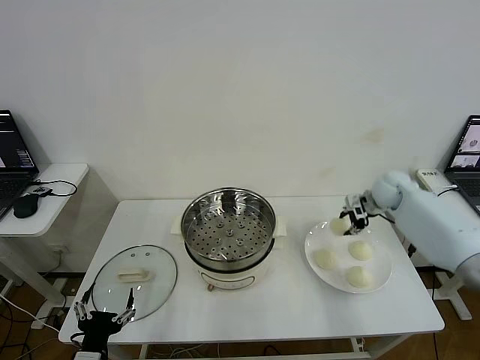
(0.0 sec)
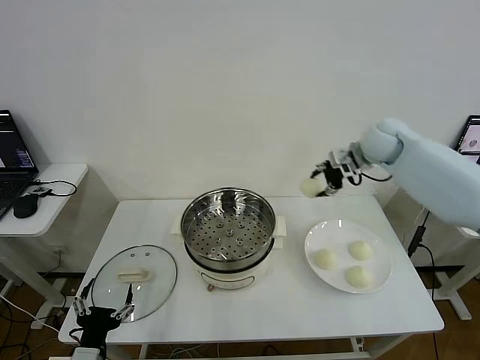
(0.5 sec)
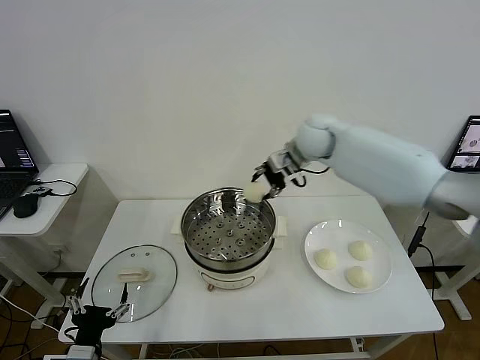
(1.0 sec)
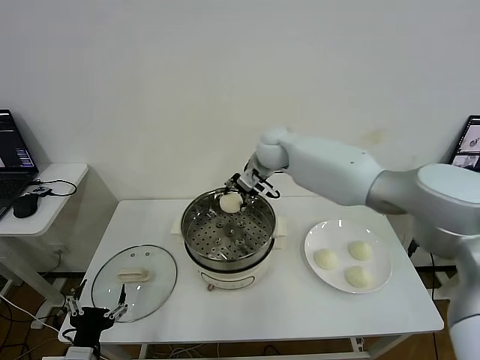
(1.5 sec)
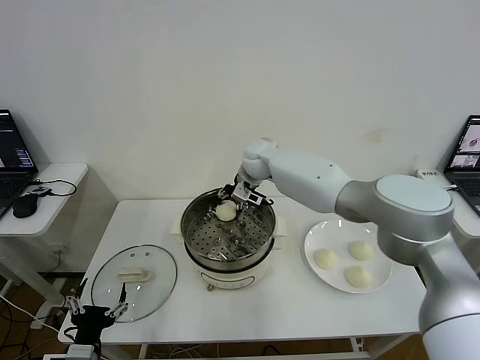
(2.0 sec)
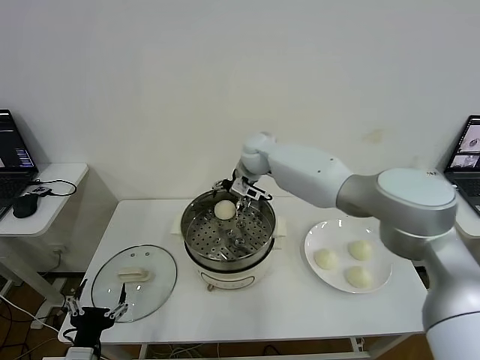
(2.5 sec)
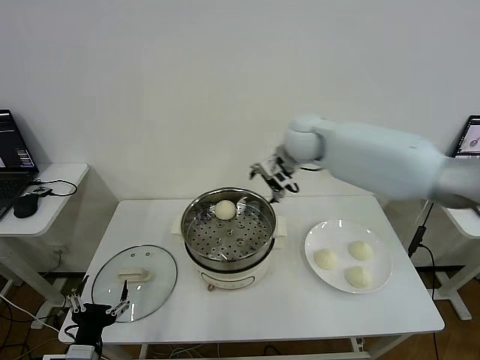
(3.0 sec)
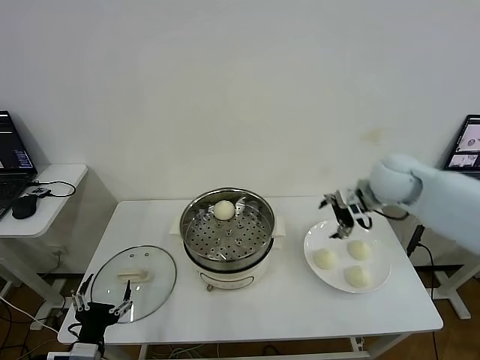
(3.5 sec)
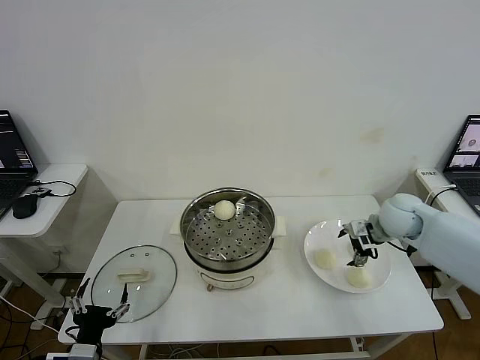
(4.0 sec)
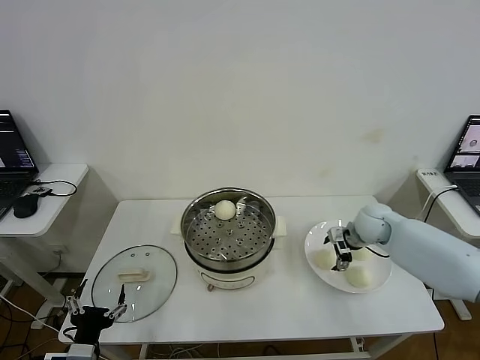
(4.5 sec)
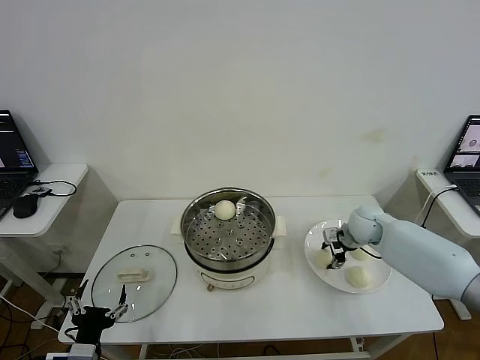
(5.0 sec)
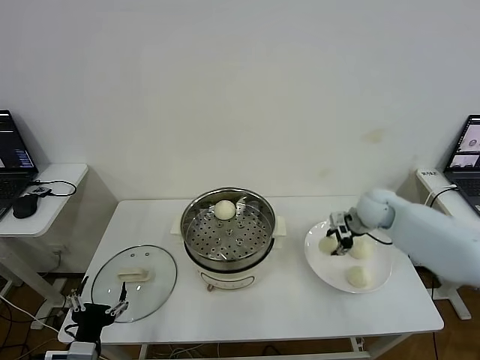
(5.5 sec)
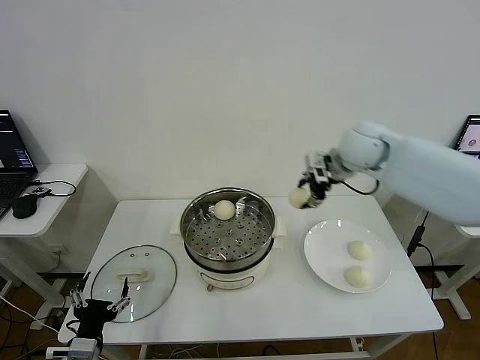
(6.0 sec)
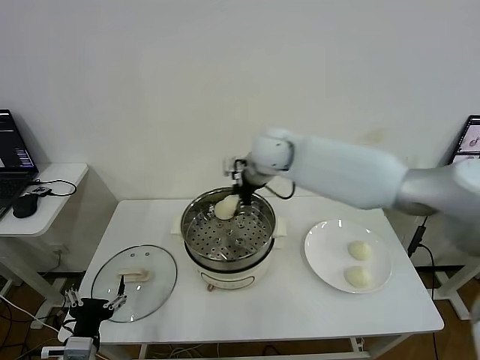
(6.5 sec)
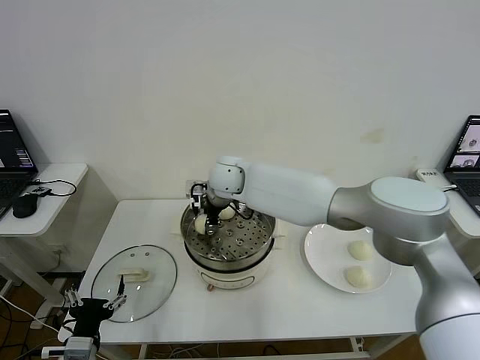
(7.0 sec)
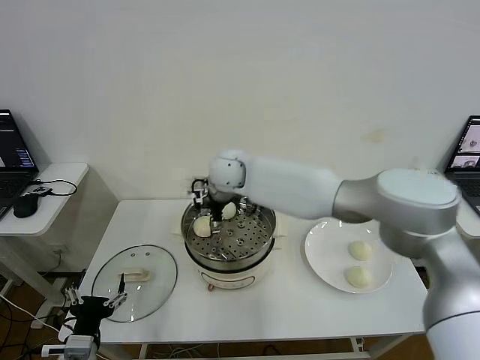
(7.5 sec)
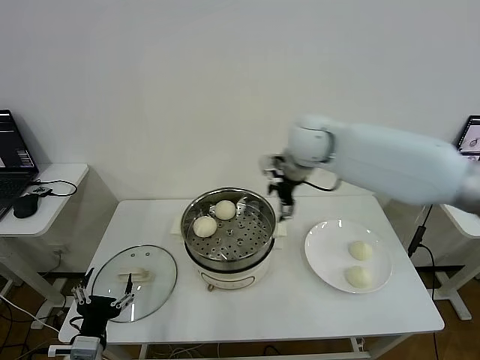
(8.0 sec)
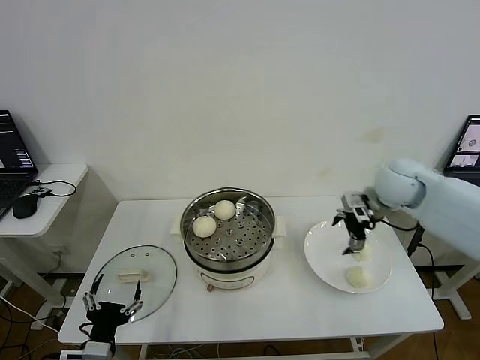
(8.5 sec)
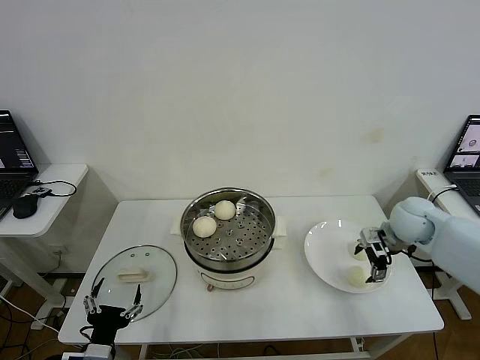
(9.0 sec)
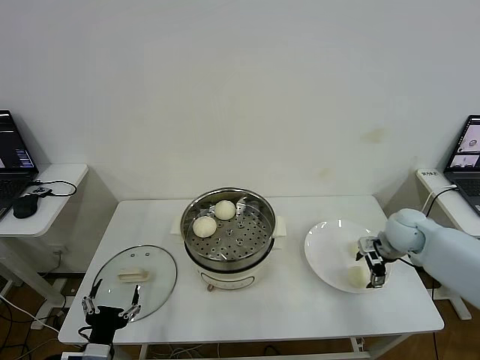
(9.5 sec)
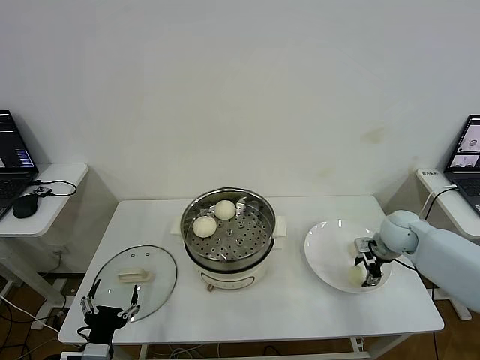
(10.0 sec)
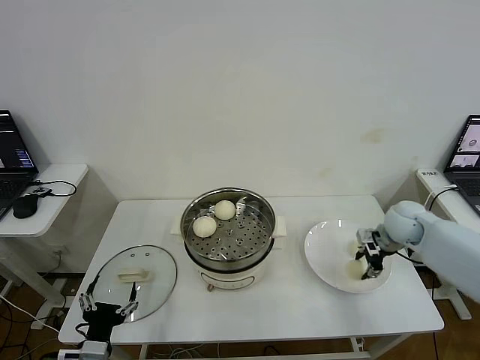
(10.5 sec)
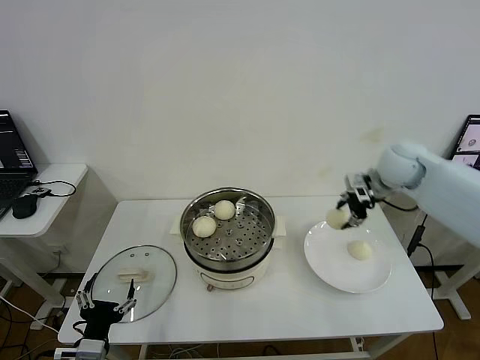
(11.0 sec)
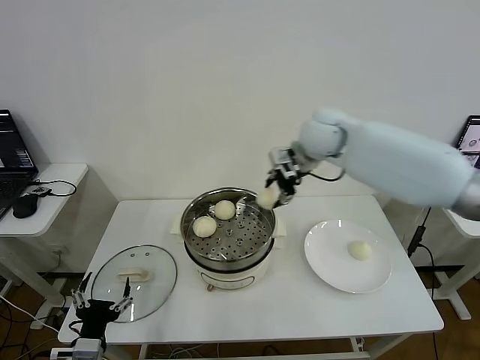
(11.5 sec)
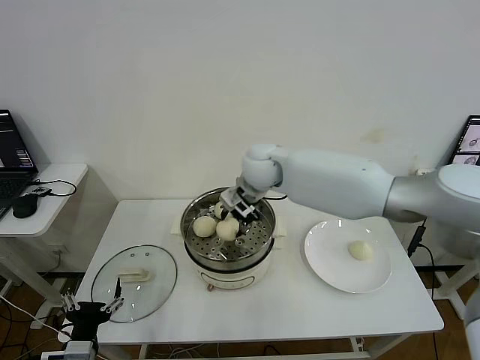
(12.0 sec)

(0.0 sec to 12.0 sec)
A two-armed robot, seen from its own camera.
Step, 0.0 sec - 2.0 sec: Place the baozi on the steamer with right gripper.
Step, 2.5 sec - 5.0 sec: Grasp the baozi in the plate with right gripper.
Step, 5.5 sec - 7.5 sec: Place the baozi on the steamer with right gripper.
Step, 8.0 sec - 10.0 sec: Grasp the baozi in the plate with right gripper.
0.0 sec - 2.0 sec: The right gripper shifts roughly 35 cm to the left.
2.0 sec - 4.0 sec: The right gripper travels to the right and backward by roughly 35 cm, and opens.
4.0 sec - 6.0 sec: The right gripper travels upward and to the left by roughly 20 cm, and closes its fingers.
6.0 sec - 8.0 sec: The right gripper goes to the left and returns, some 25 cm each way, and opens.
8.0 sec - 10.0 sec: The right gripper moves to the right and downward, some 35 cm, and closes its fingers.
10.0 sec - 12.0 sec: The right gripper travels to the left and upward by approximately 40 cm.

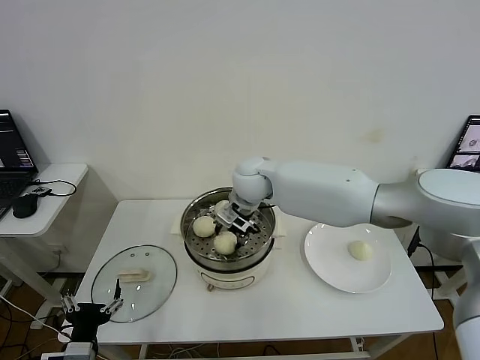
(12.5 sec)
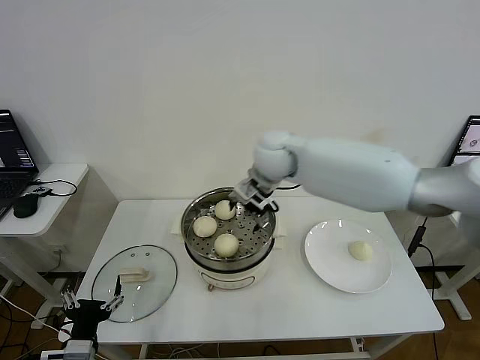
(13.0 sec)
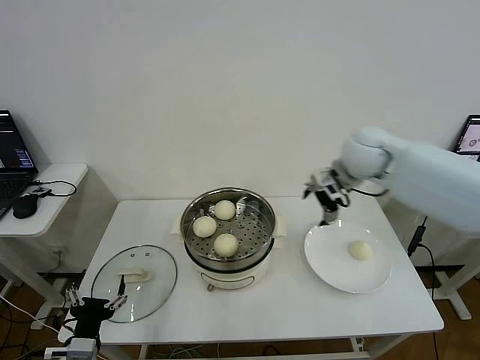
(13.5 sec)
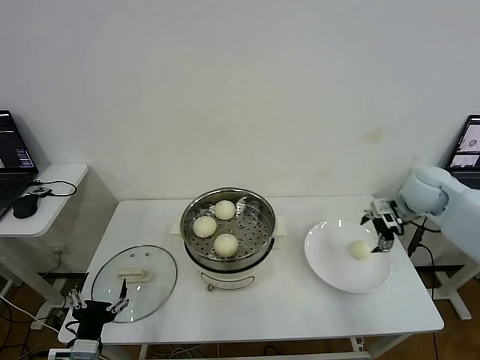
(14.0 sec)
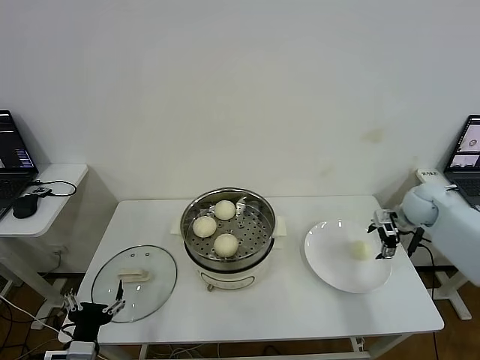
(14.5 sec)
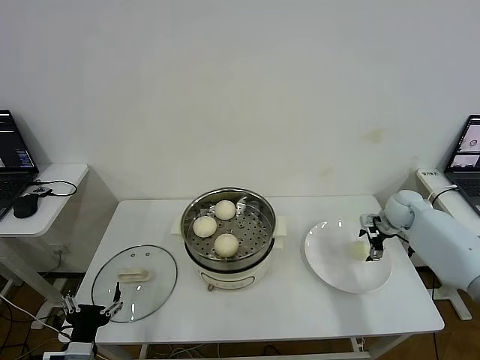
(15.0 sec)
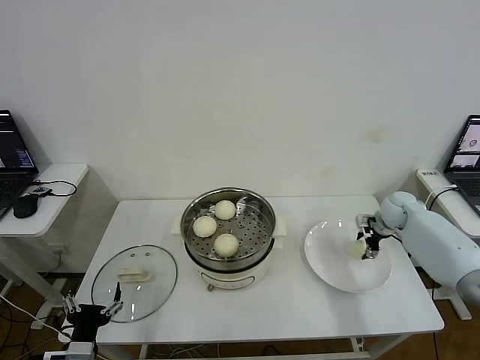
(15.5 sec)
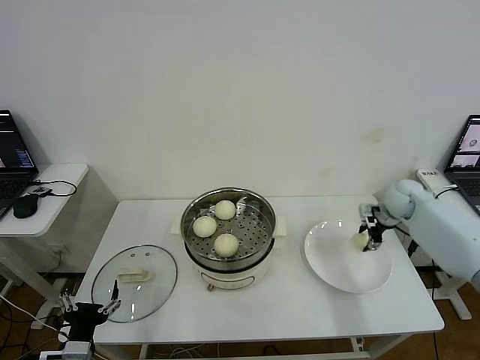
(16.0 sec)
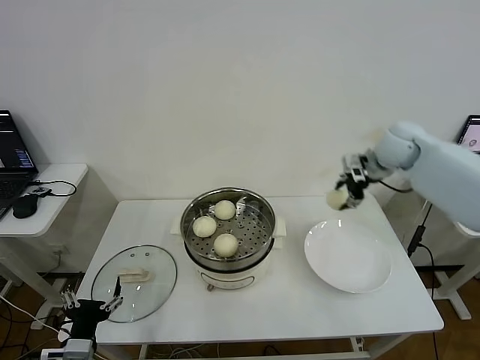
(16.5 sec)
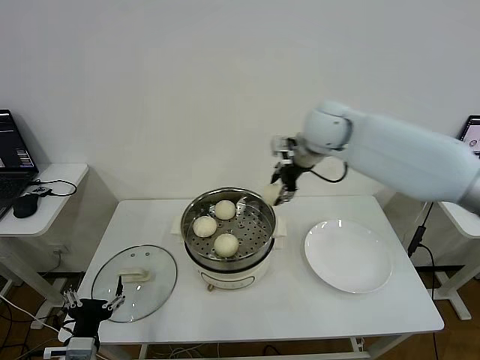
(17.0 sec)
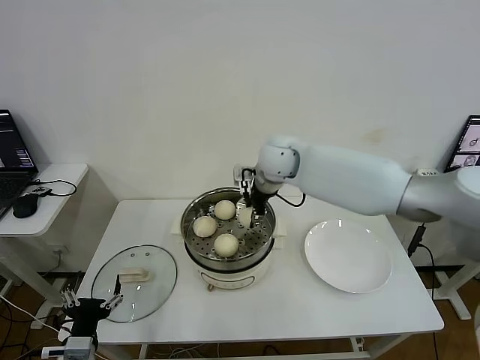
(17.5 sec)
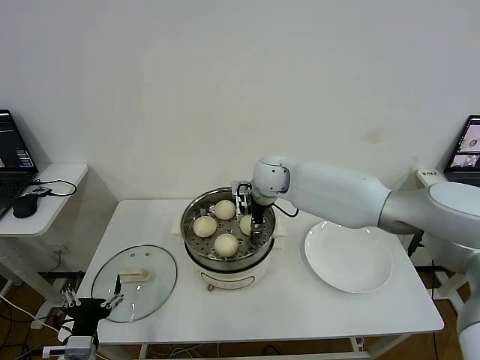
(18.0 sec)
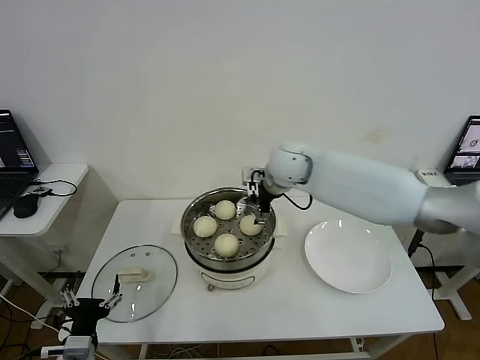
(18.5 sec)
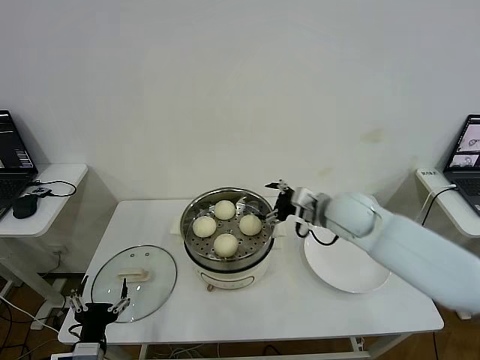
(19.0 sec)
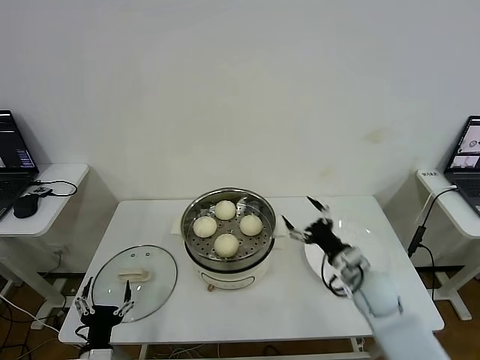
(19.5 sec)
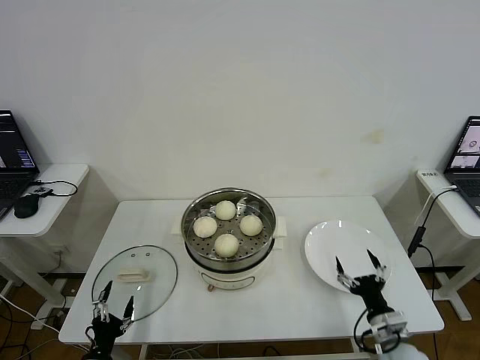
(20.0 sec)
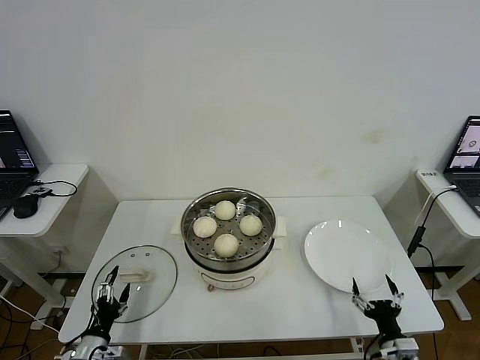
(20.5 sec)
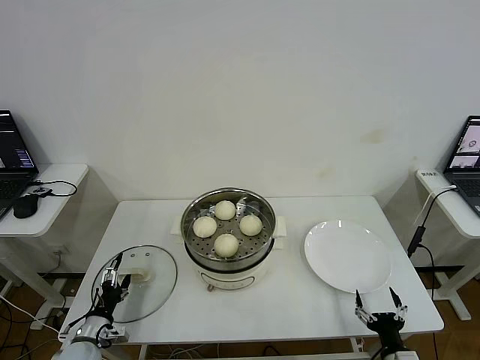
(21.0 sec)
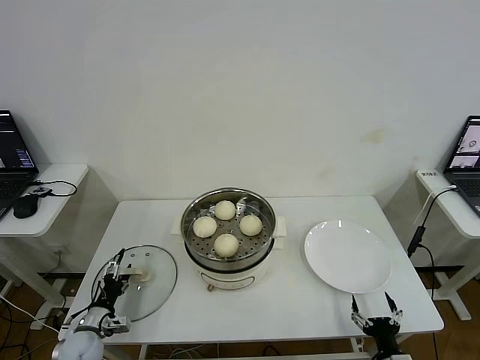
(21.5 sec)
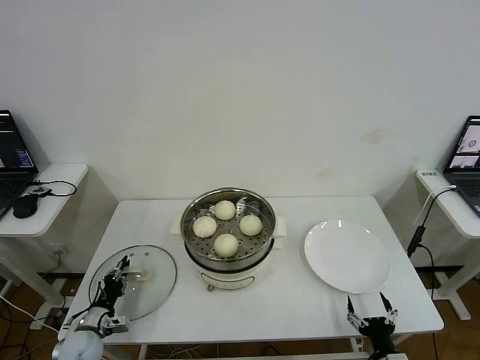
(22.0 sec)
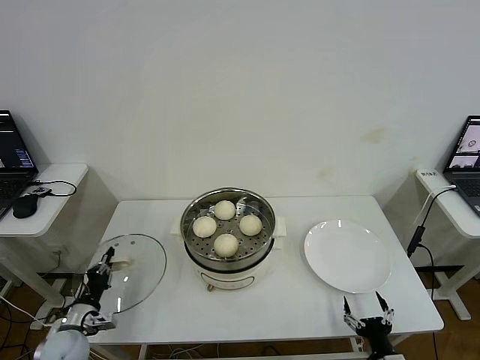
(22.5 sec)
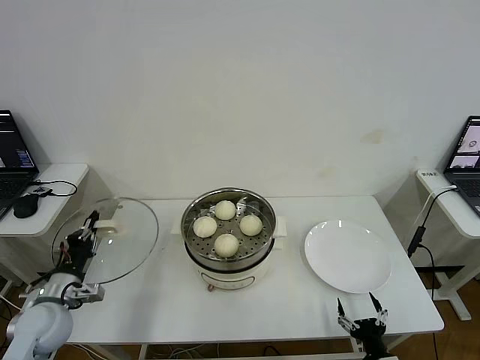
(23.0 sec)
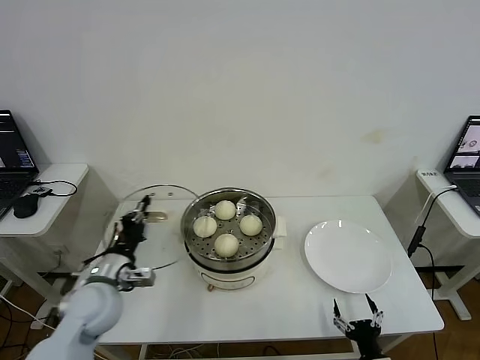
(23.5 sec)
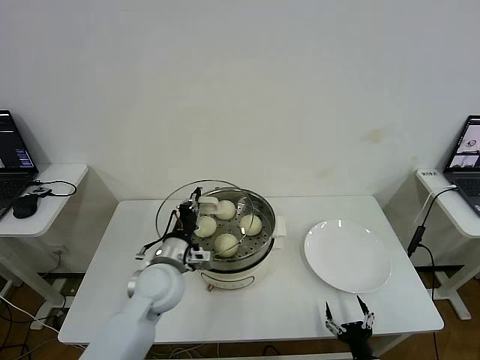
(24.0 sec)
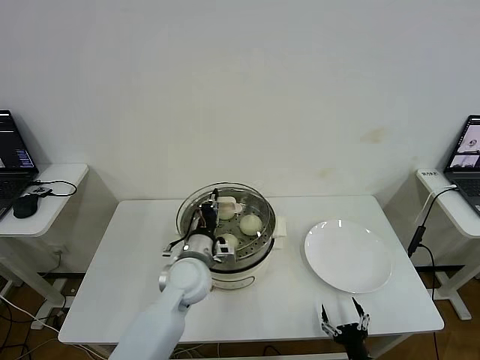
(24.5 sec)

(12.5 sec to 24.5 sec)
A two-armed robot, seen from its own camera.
Step, 13.0 sec - 15.5 sec: Grasp the baozi in the plate with right gripper.
Step, 16.0 sec - 18.0 sec: Place the baozi on the steamer with right gripper.
Step, 18.5 sec - 22.0 sec: Grasp the pot lid with left gripper.
12.5 sec - 14.5 sec: The right gripper goes some 40 cm to the right, and opens up.
14.5 sec - 16.5 sec: The right gripper goes about 20 cm upward and to the left, and closes up.
16.5 sec - 18.5 sec: The right gripper travels to the left by approximately 25 cm, and opens up.
18.5 sec - 20.5 sec: The right gripper heads backward, downward and to the right, covering about 50 cm. Meanwhile the left gripper goes about 10 cm downward and to the left.
20.5 sec - 22.5 sec: The left gripper goes some 5 cm forward, and closes up.
22.5 sec - 24.5 sec: The right gripper ends up approximately 5 cm from where it was. Meanwhile the left gripper travels to the right and upward by some 35 cm.

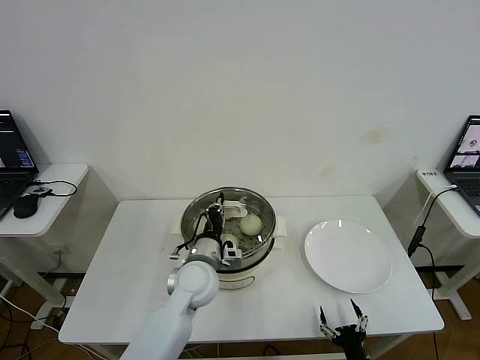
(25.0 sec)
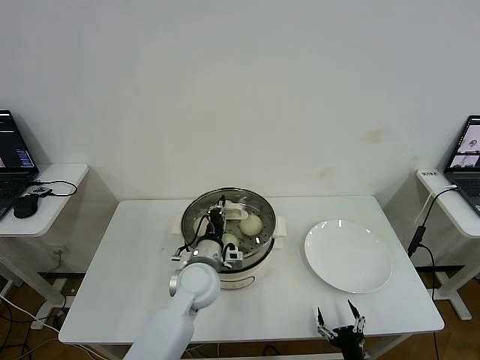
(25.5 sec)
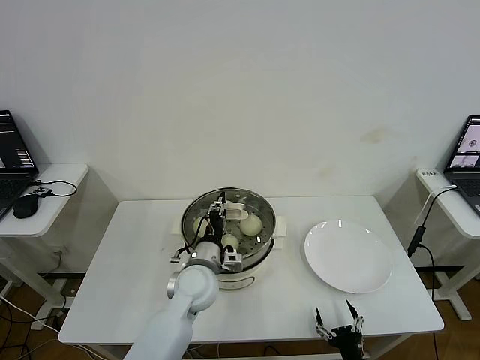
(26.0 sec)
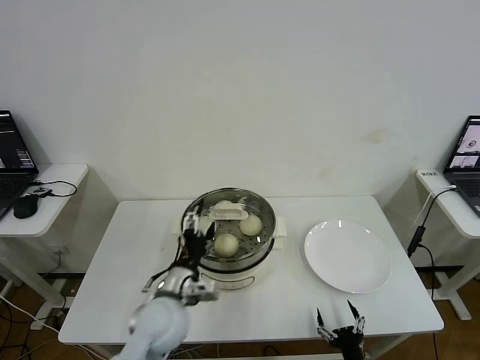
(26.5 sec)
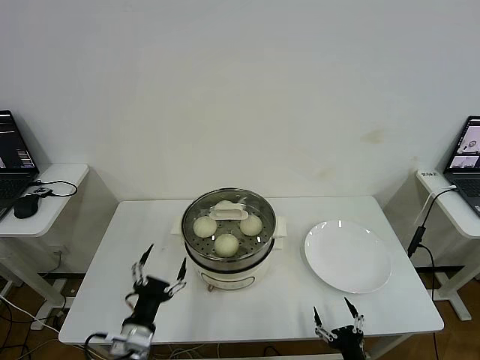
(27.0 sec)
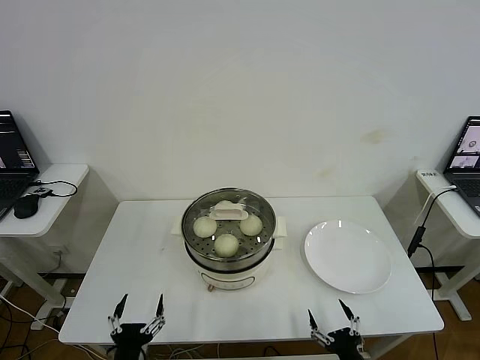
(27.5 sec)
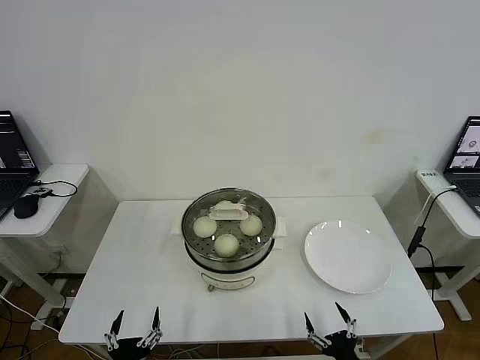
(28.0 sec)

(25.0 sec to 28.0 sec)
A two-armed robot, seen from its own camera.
25.0 sec - 26.5 sec: The left gripper is displaced backward by roughly 5 cm, and opens.
26.5 sec - 28.0 sec: The left gripper is displaced backward, downward and to the left by approximately 25 cm; the right gripper changes place by about 5 cm.
